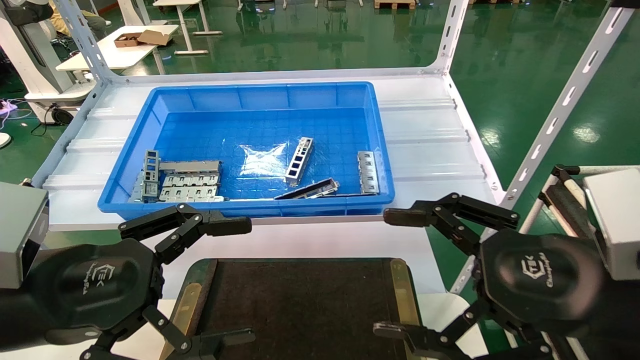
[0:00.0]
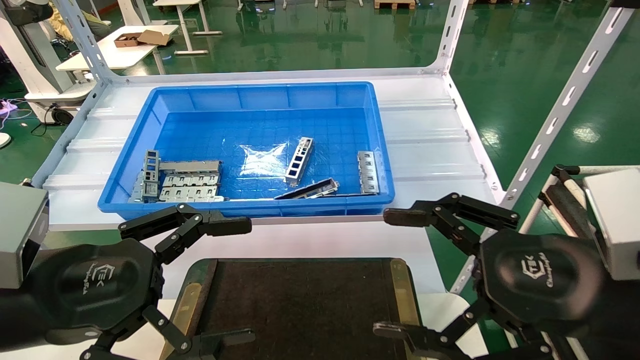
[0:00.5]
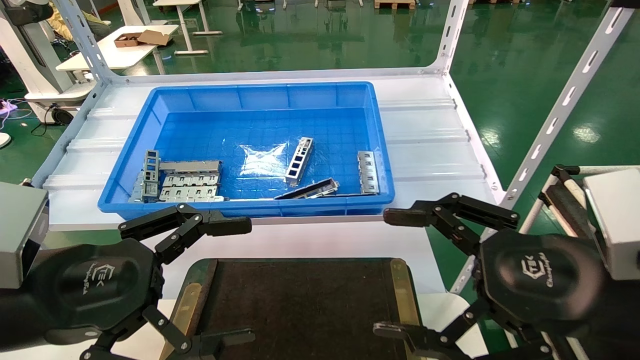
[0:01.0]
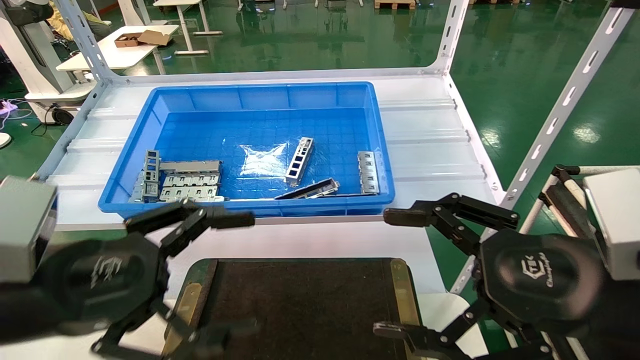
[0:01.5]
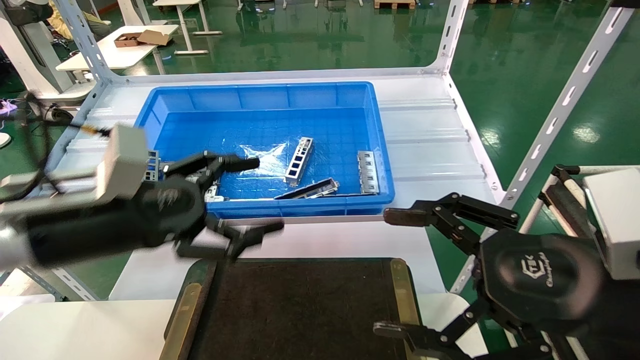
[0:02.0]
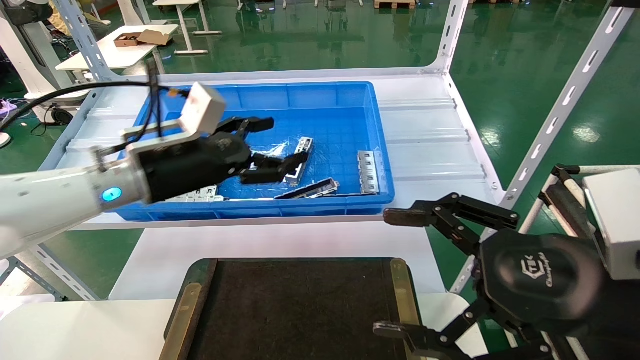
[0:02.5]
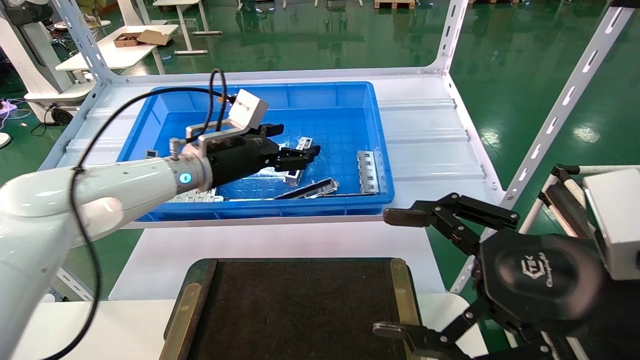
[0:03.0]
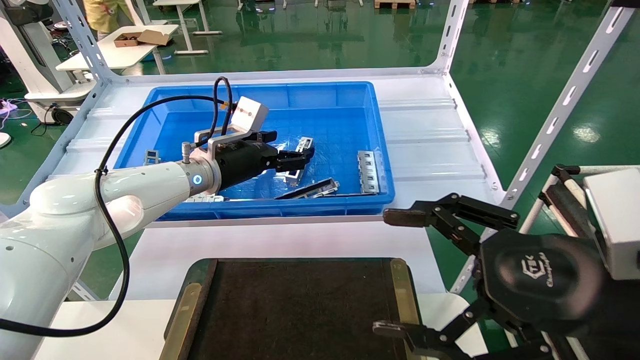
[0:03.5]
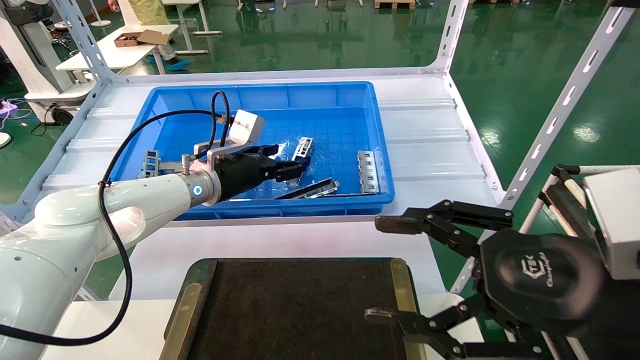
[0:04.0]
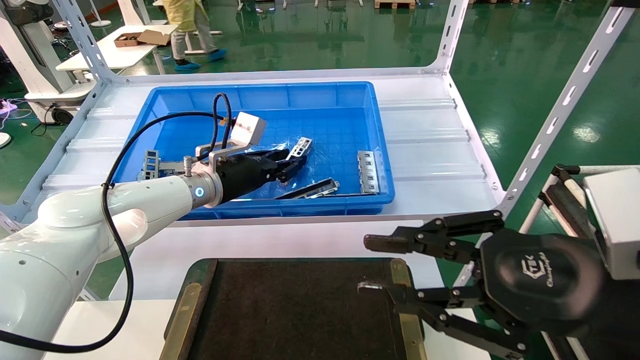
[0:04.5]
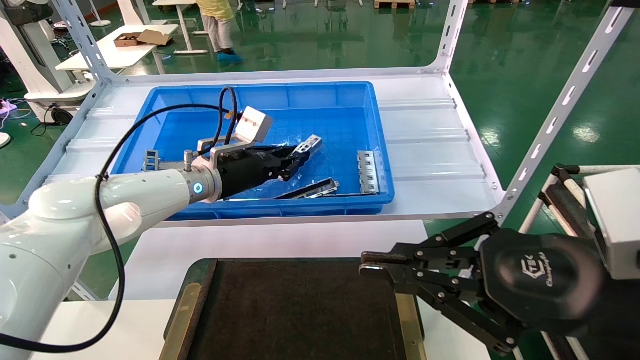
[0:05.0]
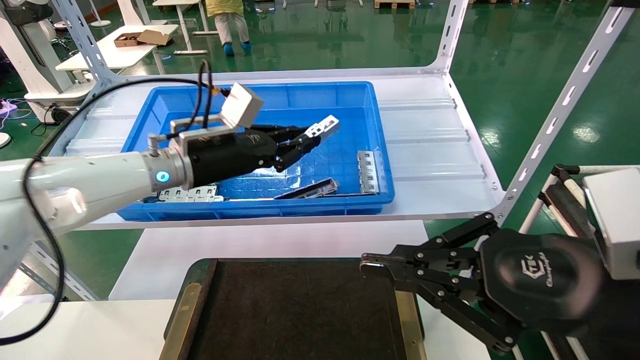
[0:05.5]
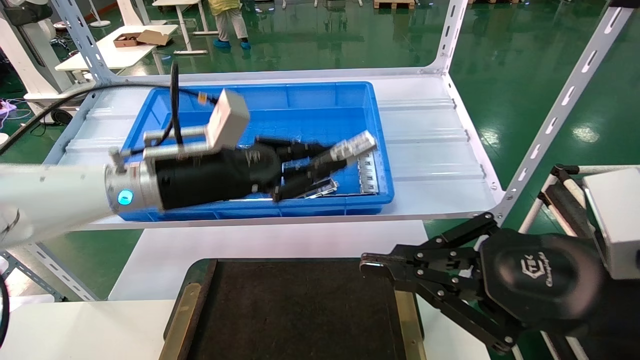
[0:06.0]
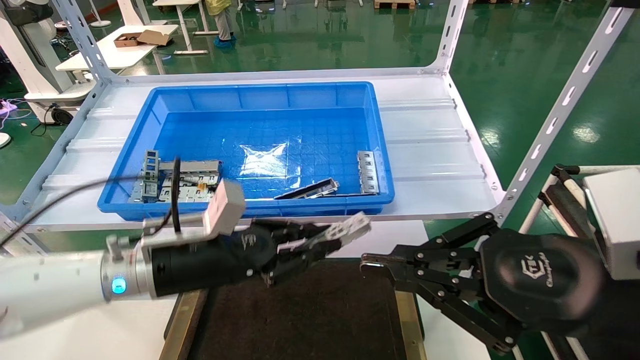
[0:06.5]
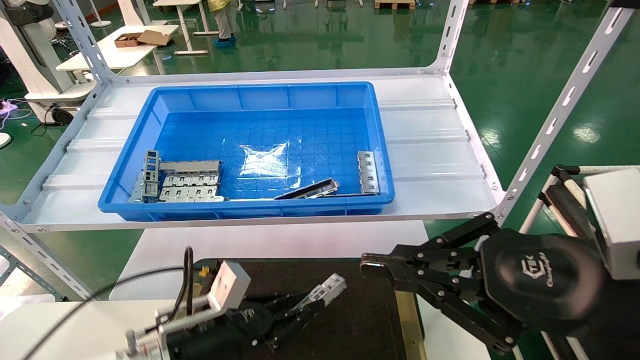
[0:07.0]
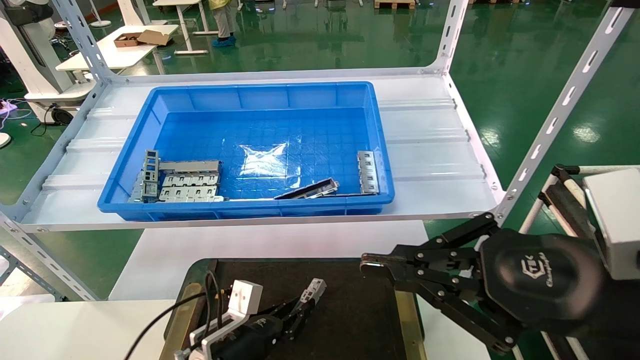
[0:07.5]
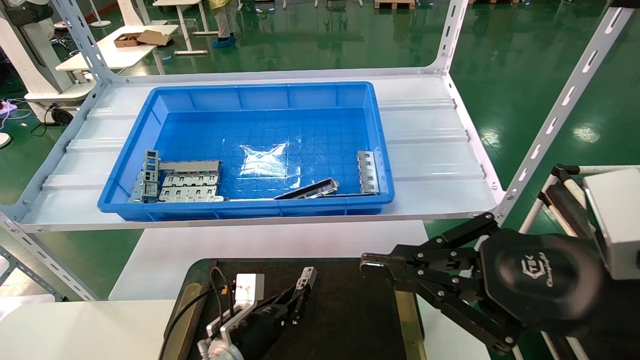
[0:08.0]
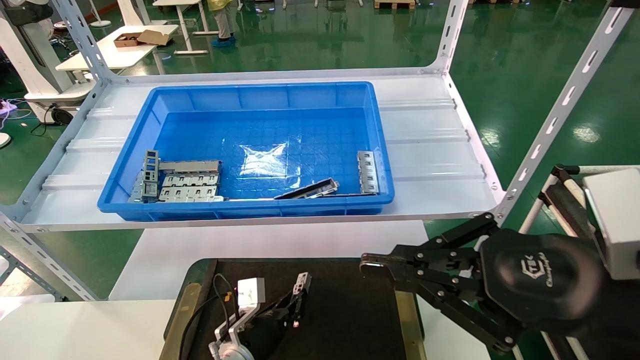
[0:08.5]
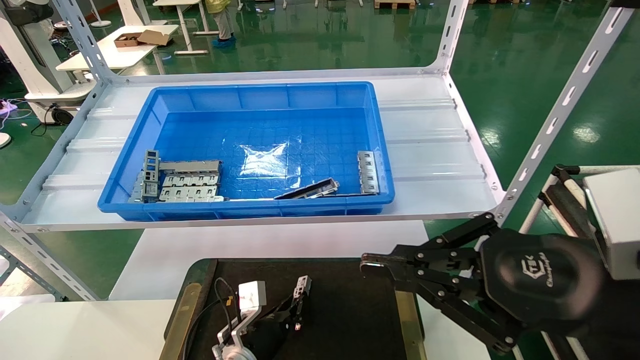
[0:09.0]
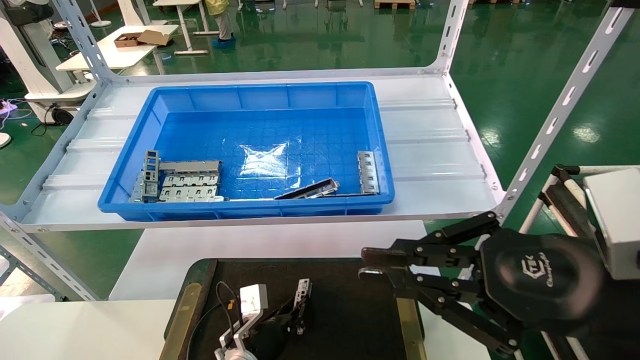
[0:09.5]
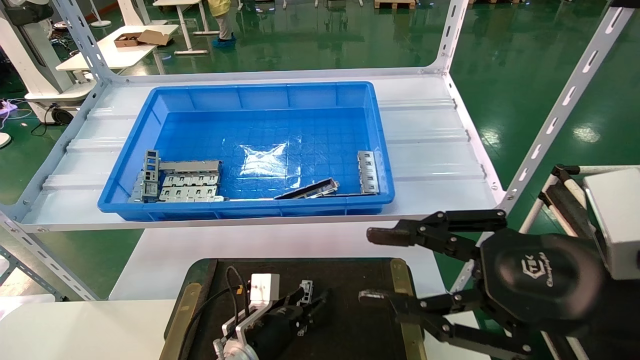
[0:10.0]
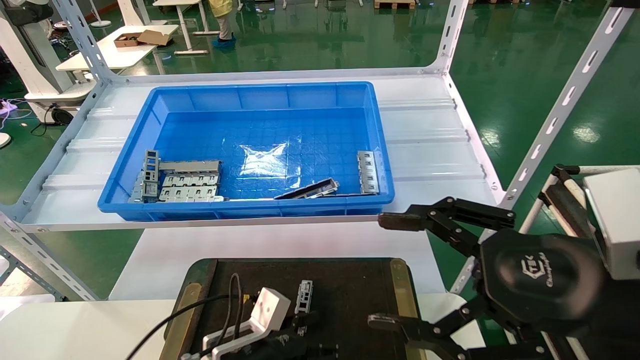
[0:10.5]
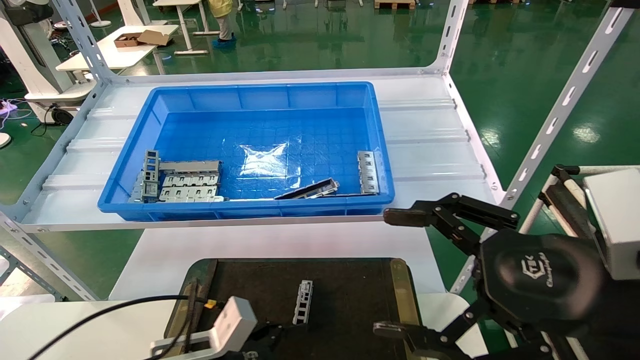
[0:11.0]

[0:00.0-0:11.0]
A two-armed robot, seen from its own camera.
Task of the whole recording: Grasp the part with one hand and place it on the black container.
Step, 0:02.0 to 0:04.5: Pick up the front USB bracket from the feeding area.
Step, 0:05.0 to 0:09.5: Place the front USB bracket into the box.
0:00.0 to 0:02.0: The left gripper moves forward, about 10 cm.
0:02.0 to 0:03.5: The left gripper moves forward, roughly 20 cm.
0:03.5 to 0:05.5: The left gripper ends up about 5 cm from where it was, and closes up; the right gripper closes up.
0:05.5 to 0:07.5: The left gripper travels downward by roughly 30 cm.
0:07.5 to 0:09.0: The left gripper moves about 10 cm.
0:09.0 to 0:11.0: The right gripper opens. Meanwhile the left gripper heads backward, upward and to the left, covering approximately 20 cm, and opens up.

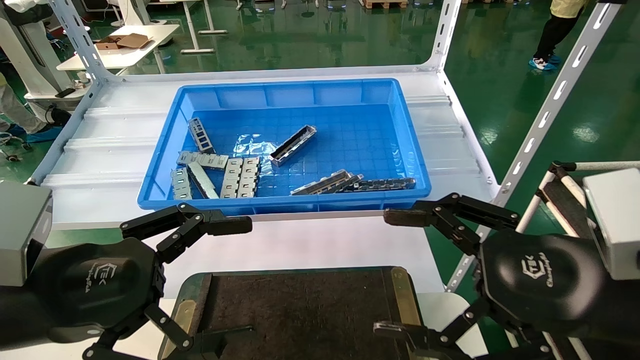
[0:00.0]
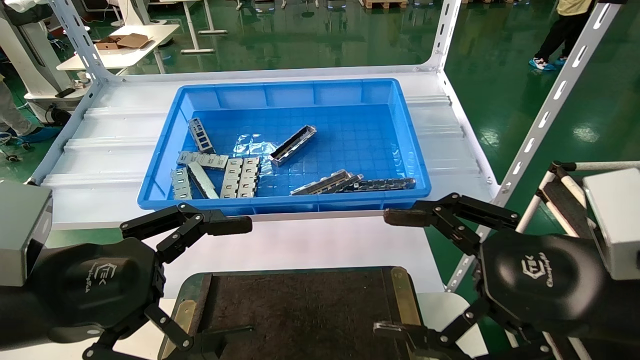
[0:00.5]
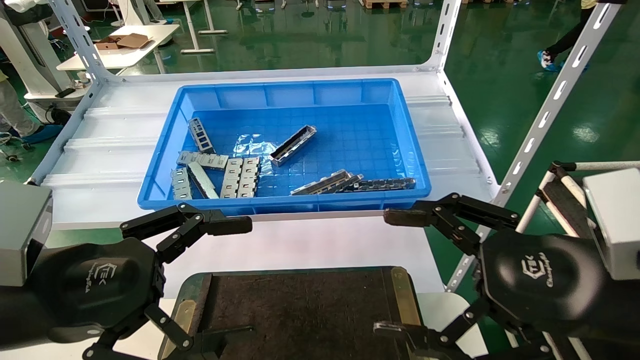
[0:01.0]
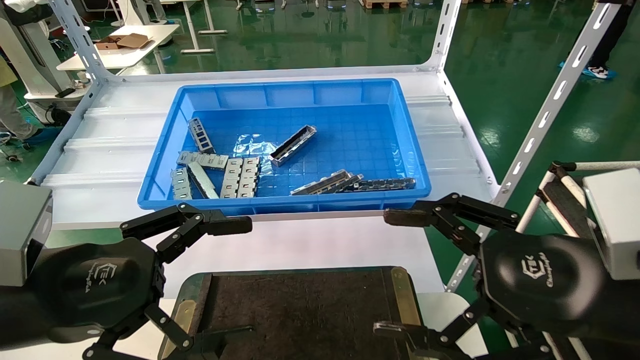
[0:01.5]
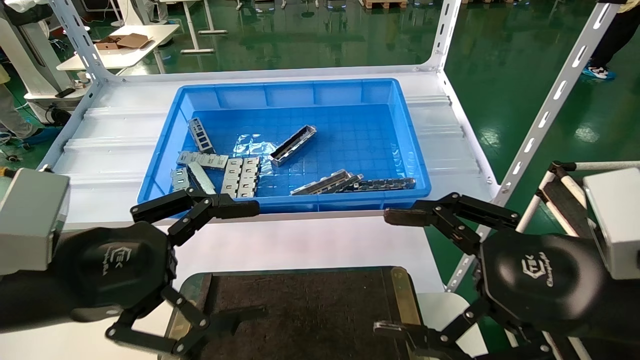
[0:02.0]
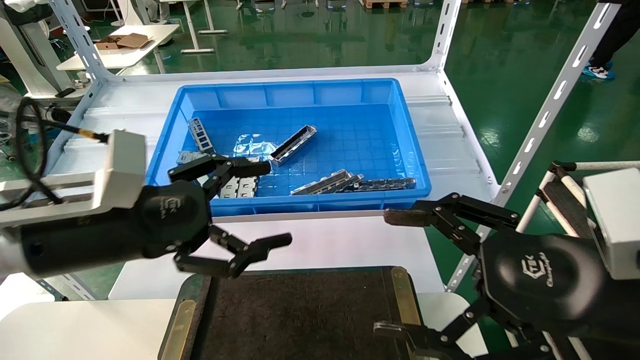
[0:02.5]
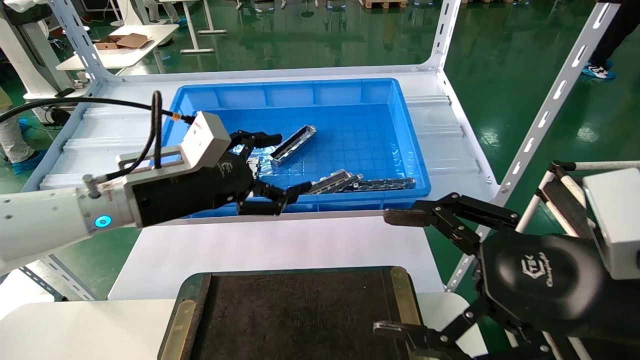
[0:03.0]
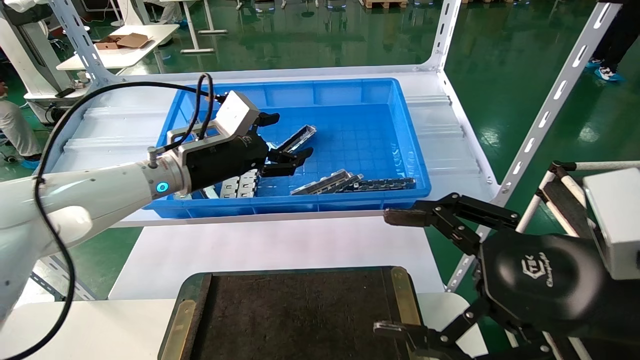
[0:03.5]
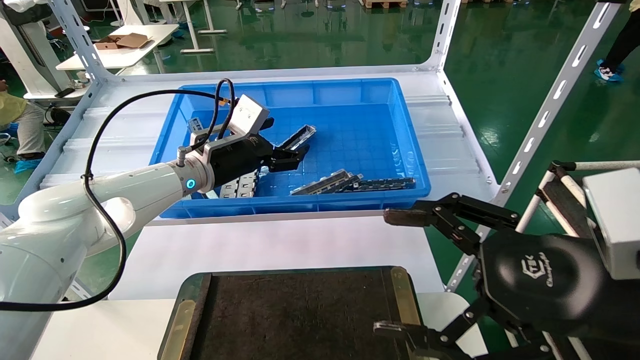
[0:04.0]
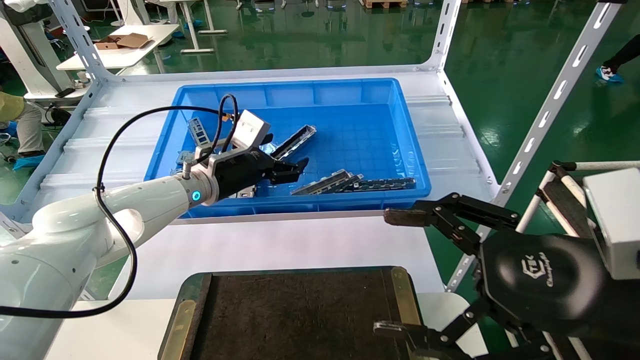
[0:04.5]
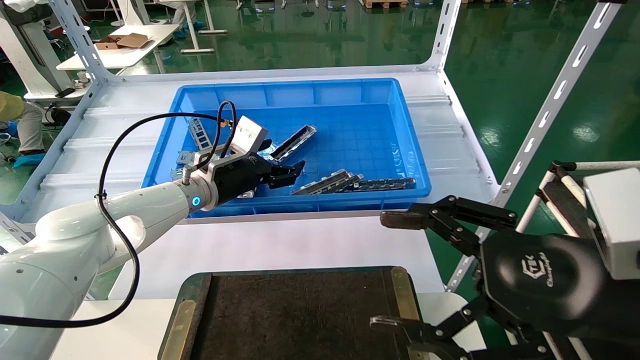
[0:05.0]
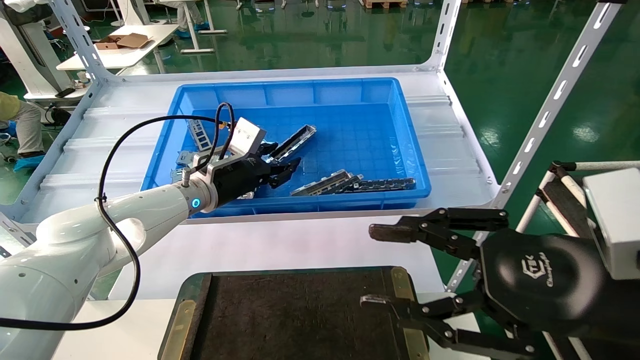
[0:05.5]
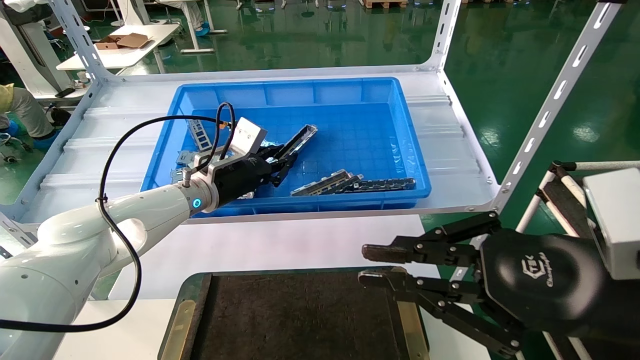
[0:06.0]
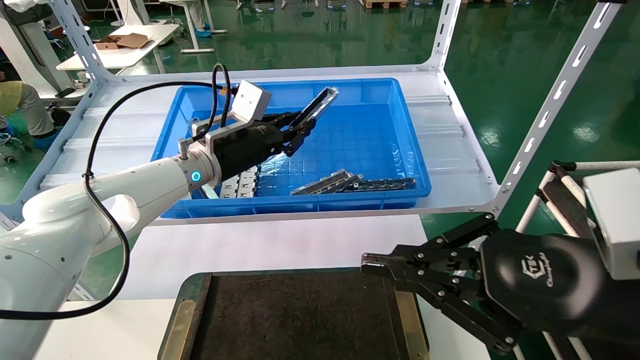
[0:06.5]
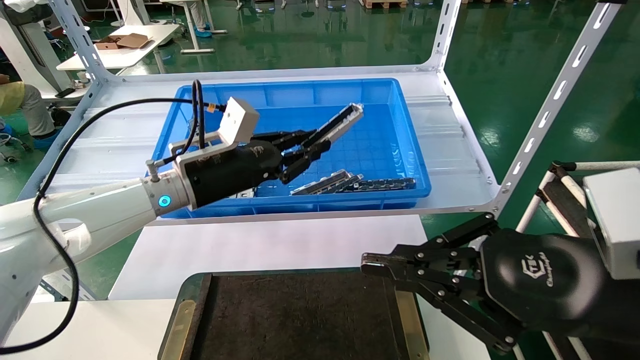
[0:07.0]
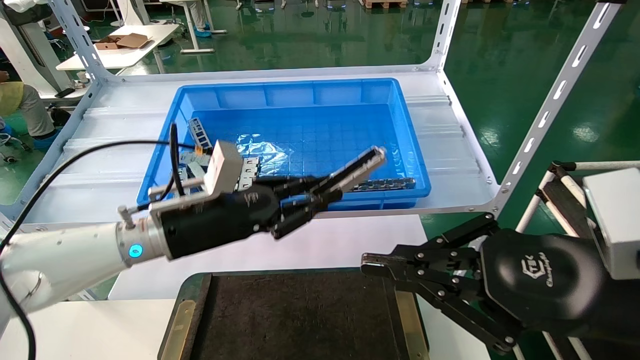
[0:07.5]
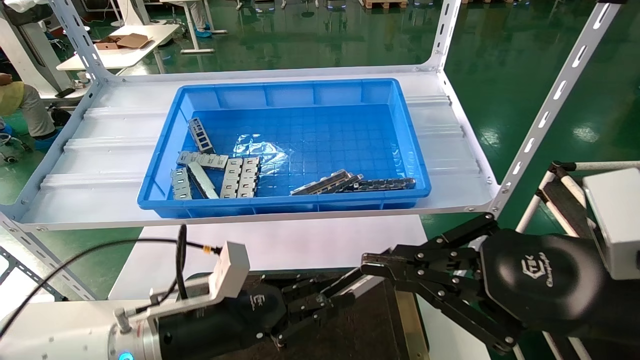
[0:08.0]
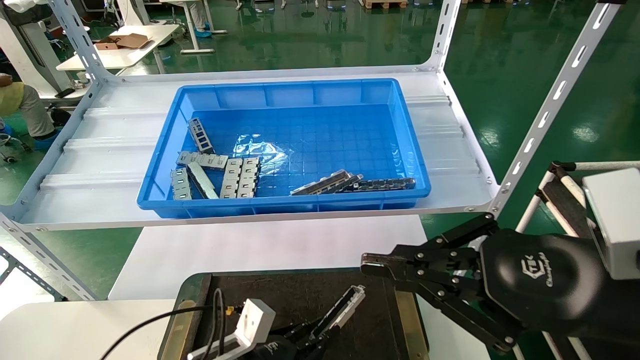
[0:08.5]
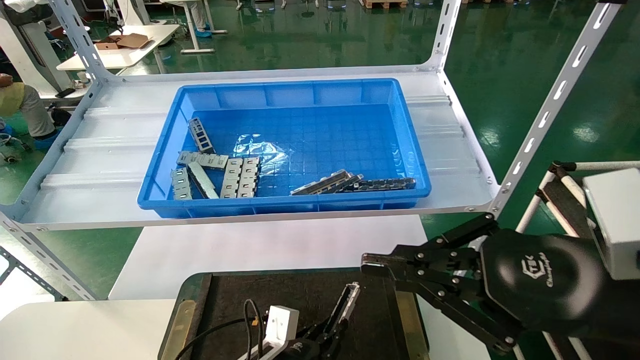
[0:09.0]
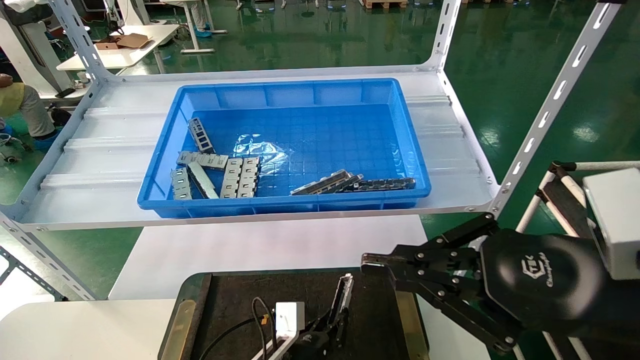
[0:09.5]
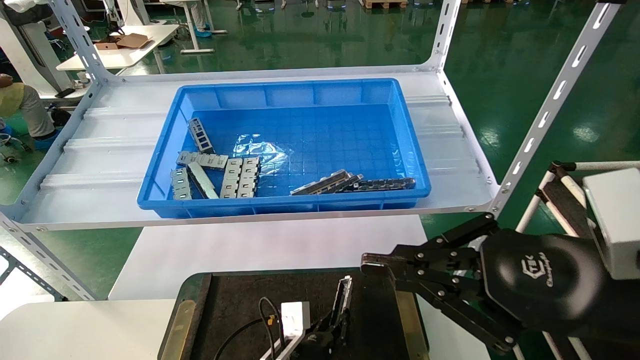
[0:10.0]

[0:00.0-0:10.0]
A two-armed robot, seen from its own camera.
Task of the whole recording: Grasp the part with one hand and place it on the black container.
Step, 0:02.0 to 0:06.5: Pick up the front USB bracket from the feeding area.
0:00.0 to 0:02.0: The grippers make only small movements.
0:02.0 to 0:04.0: The left gripper moves forward, approximately 30 cm.
0:04.0 to 0:06.0: The right gripper closes; the left gripper closes up.
0:06.0 to 0:08.0: The left gripper travels backward and downward by some 25 cm.
0:08.0 to 0:10.0: The left gripper travels downward and to the right by approximately 20 cm.
